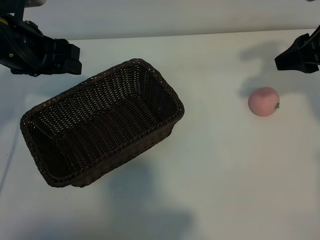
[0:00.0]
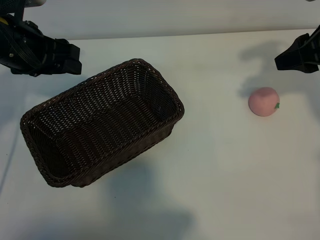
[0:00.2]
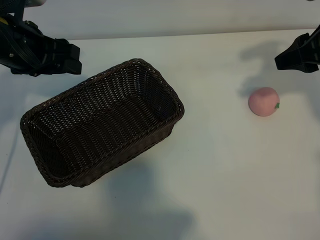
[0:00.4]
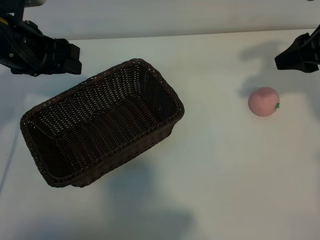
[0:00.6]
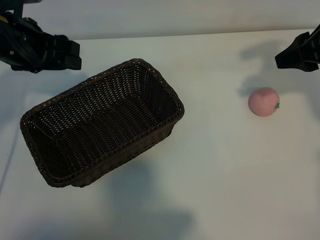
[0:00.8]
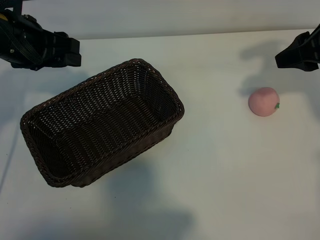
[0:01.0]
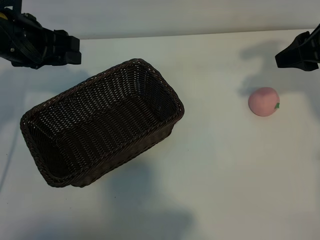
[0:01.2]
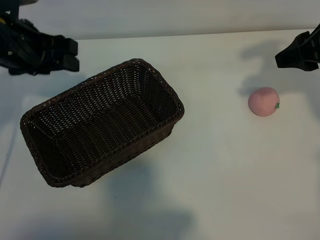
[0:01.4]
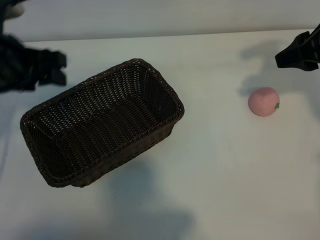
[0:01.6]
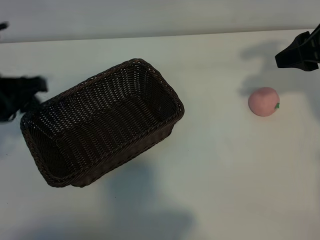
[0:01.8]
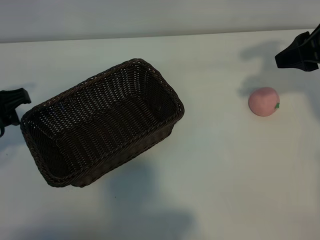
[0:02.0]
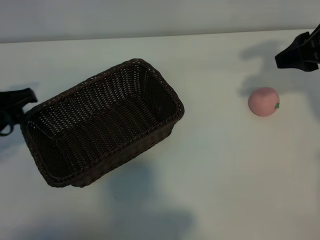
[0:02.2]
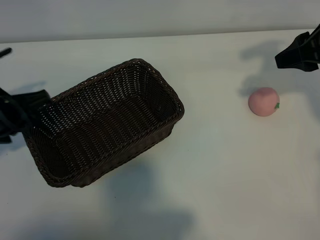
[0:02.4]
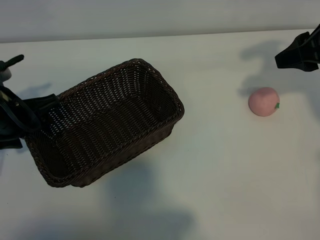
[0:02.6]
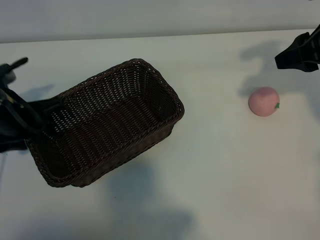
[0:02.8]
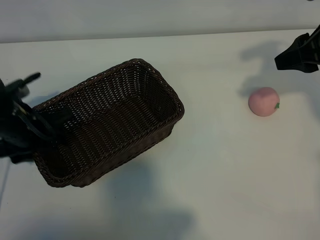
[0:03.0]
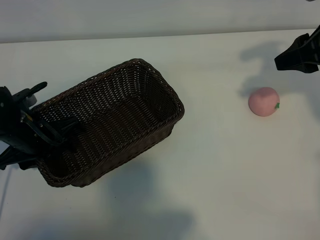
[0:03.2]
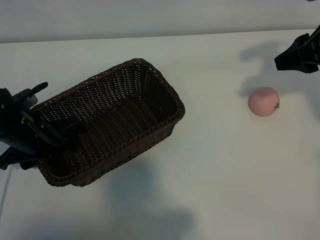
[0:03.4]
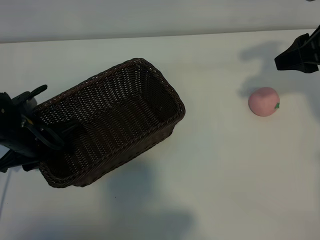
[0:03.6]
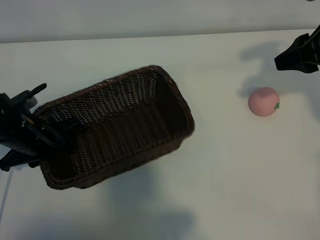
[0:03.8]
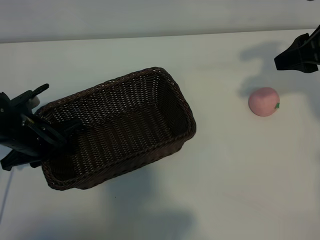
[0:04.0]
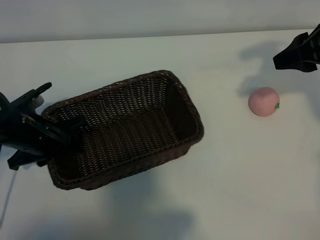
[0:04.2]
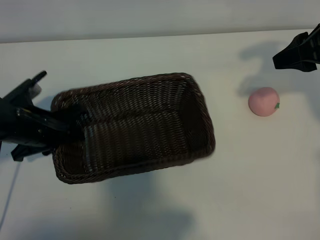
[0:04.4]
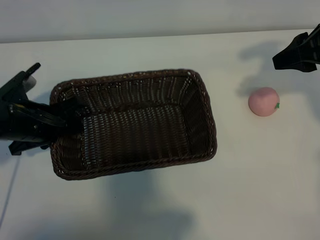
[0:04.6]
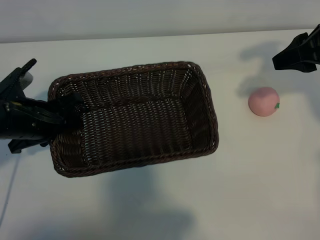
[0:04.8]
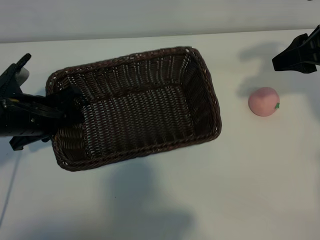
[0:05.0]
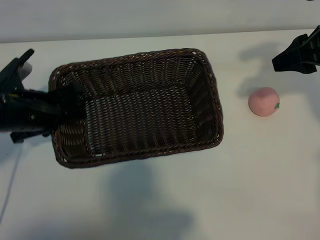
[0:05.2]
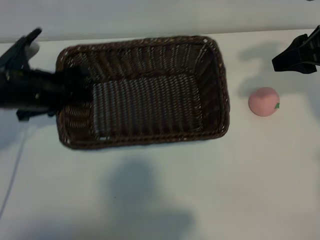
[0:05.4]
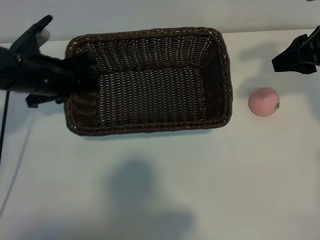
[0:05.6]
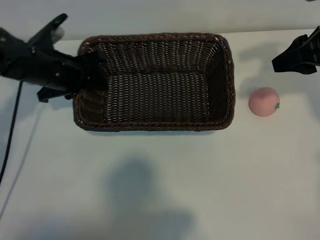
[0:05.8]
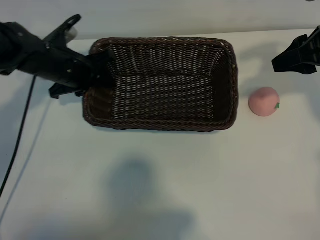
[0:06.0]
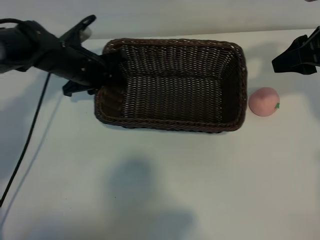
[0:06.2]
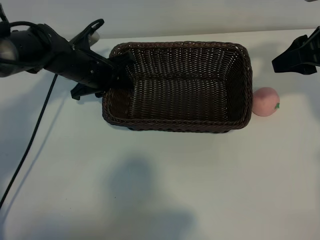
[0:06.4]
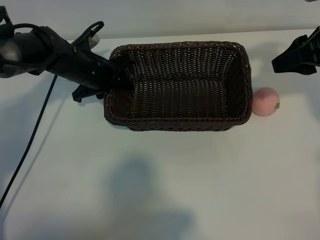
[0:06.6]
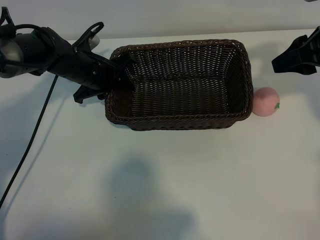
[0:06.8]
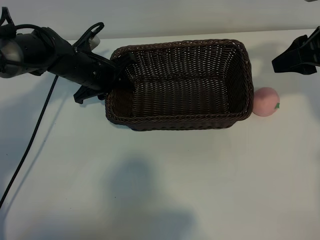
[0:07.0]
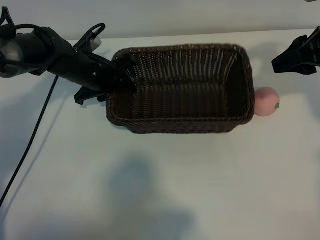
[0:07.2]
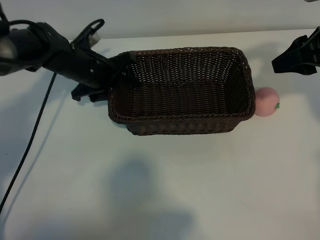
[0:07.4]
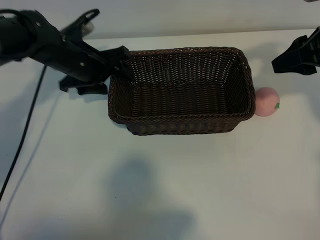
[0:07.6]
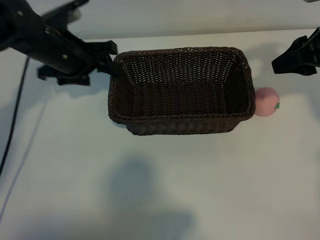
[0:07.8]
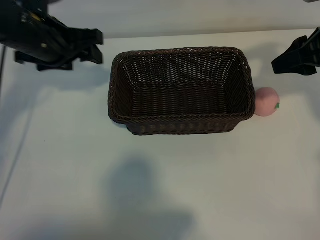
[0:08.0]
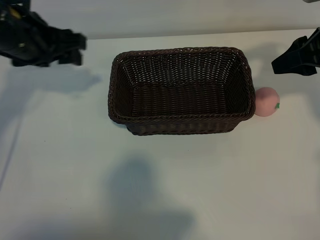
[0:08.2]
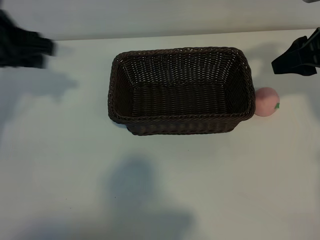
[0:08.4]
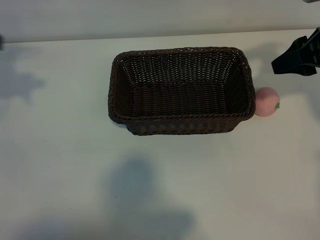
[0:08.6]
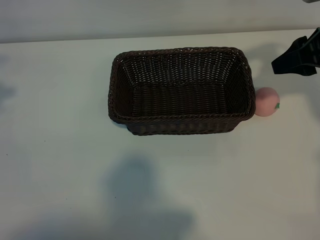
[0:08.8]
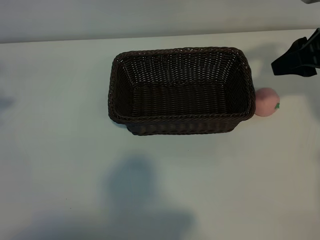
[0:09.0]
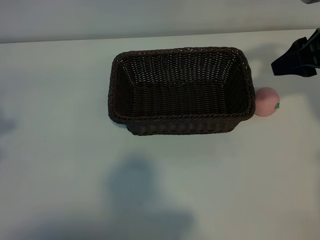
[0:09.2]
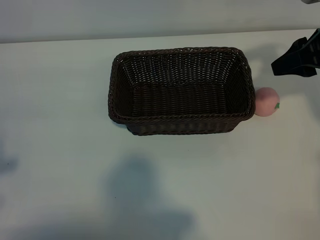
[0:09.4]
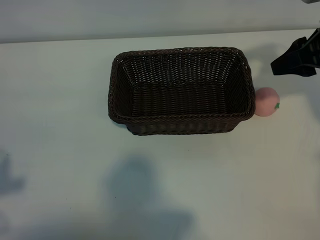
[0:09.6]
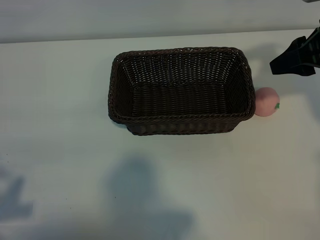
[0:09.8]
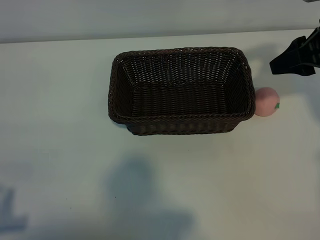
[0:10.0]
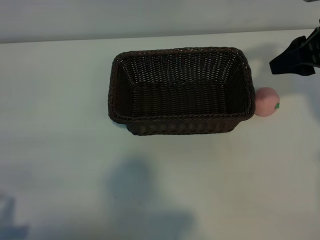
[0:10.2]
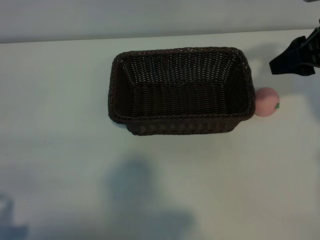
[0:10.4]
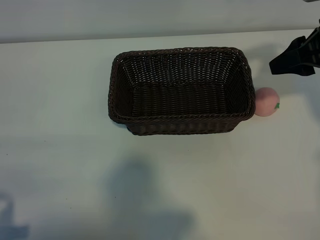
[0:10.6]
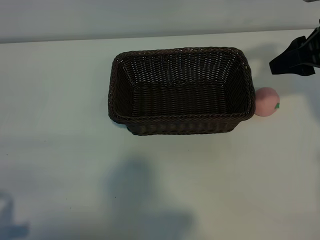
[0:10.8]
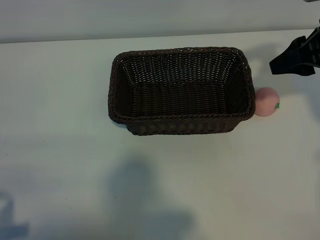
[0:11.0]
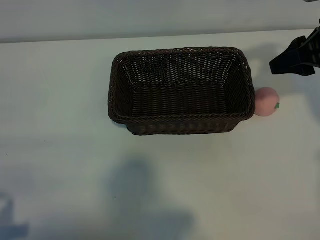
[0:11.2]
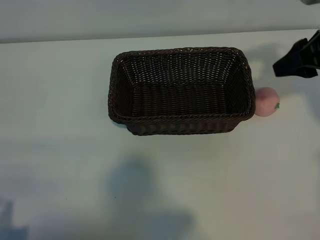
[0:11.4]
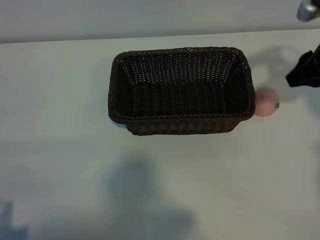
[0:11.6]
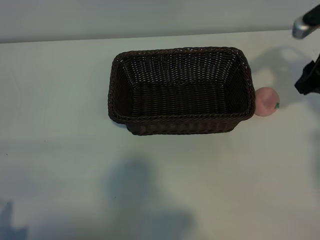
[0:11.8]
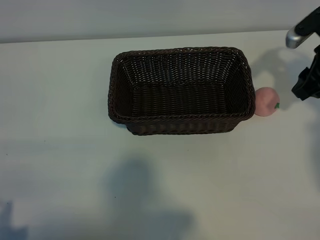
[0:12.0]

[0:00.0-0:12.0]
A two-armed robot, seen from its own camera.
Task of the whole recording: pick up the peach and put it into the basket.
Step, 0:00.8 to 0:03.8: Grasp the basket with left gripper.
Step, 0:04.0 to 0:07.6: Place the basket in the center of view with left gripper.

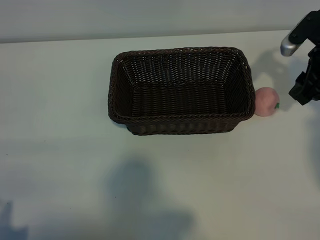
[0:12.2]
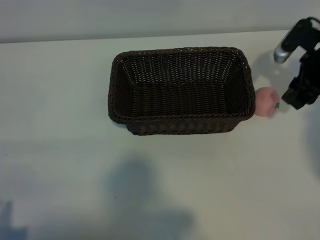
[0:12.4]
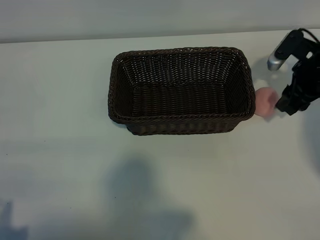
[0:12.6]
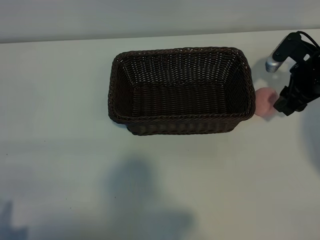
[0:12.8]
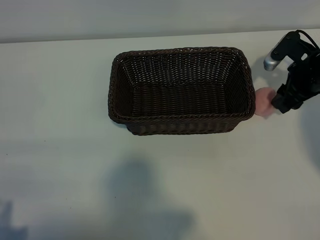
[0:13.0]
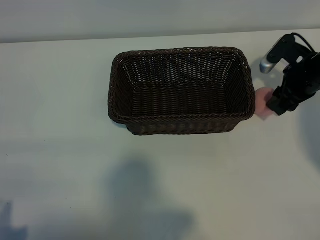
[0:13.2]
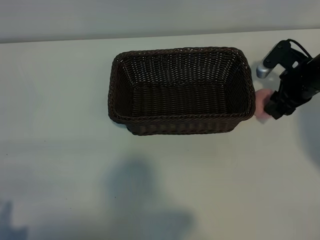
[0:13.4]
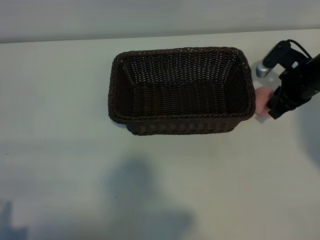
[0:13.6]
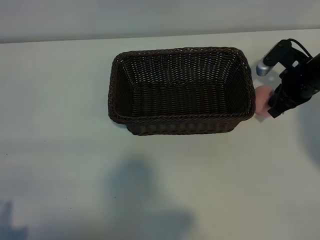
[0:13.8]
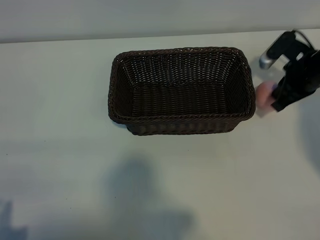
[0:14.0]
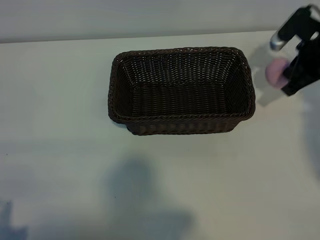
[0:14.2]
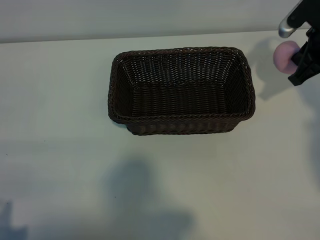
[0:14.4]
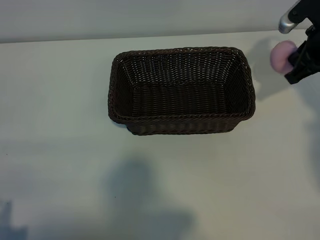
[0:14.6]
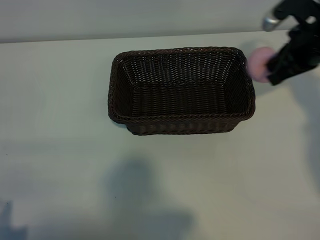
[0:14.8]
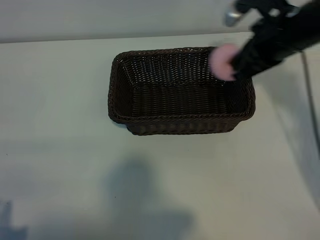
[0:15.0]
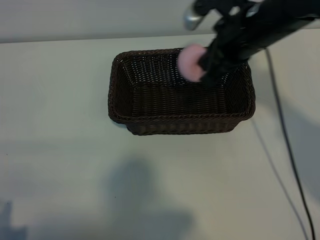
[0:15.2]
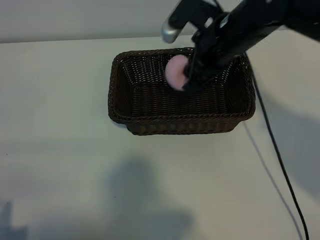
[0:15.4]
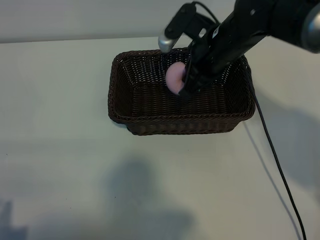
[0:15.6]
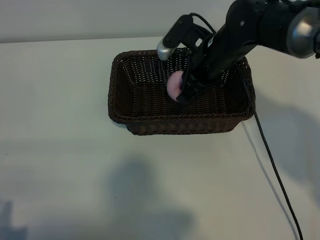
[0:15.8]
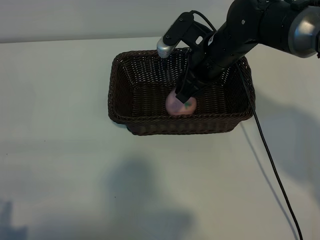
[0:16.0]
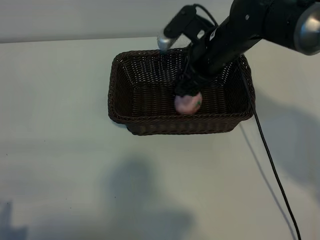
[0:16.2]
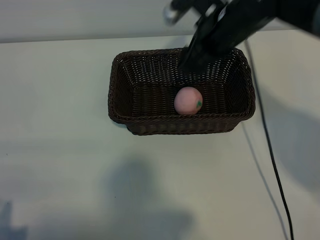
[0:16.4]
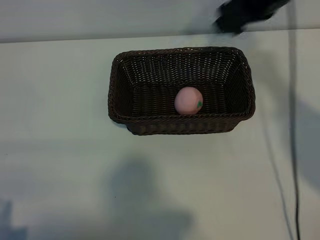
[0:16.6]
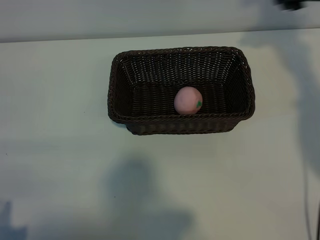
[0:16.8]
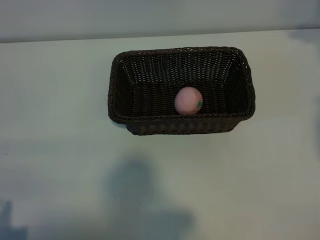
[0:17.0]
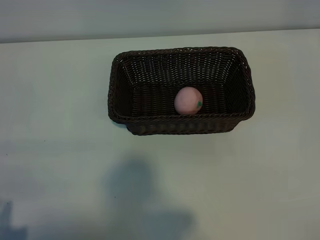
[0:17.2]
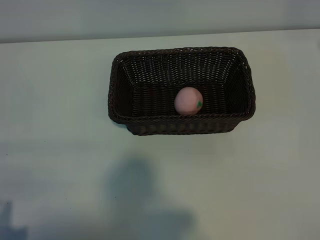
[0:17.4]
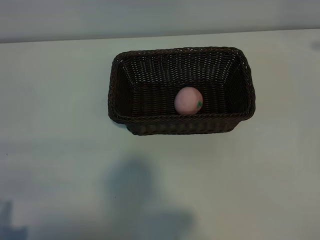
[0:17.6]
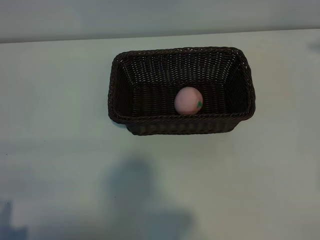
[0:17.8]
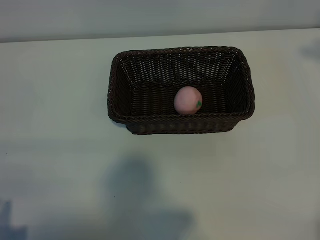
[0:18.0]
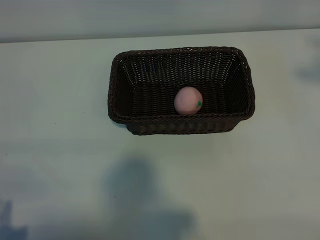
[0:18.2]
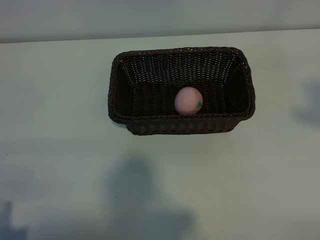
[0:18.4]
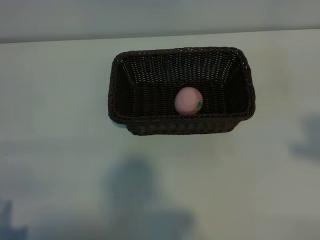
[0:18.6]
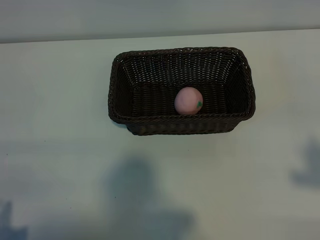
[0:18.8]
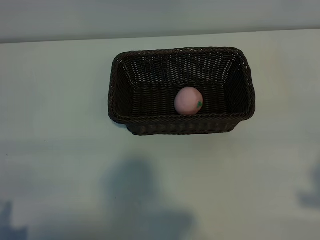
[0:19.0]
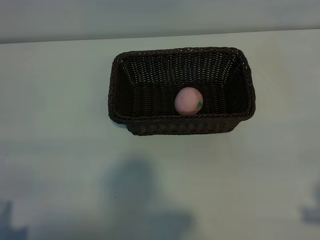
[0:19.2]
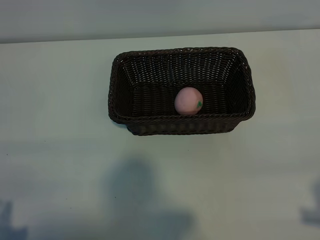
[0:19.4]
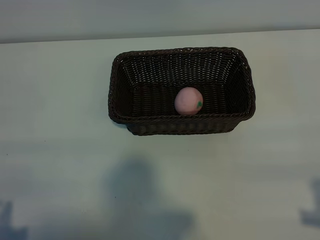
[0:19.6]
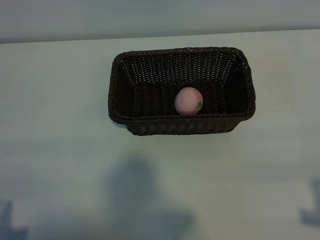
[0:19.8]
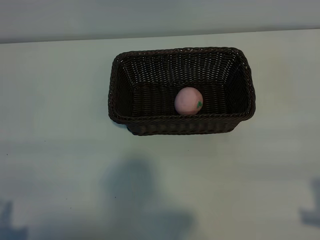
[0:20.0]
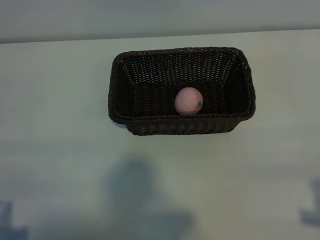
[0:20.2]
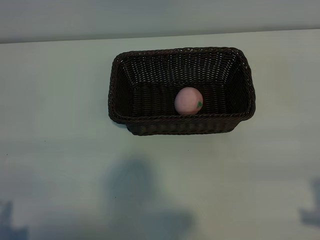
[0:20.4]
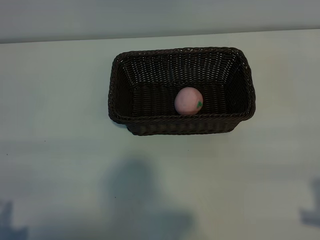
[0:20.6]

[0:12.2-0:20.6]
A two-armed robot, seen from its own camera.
Task of the whole recording: pick up the peach and put it into the basket.
Step, 0:13.8 to 0:16.2: Place the peach in the basket with right gripper.

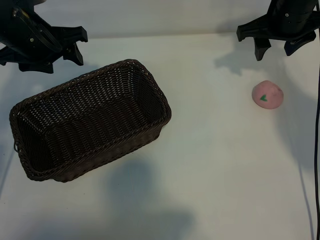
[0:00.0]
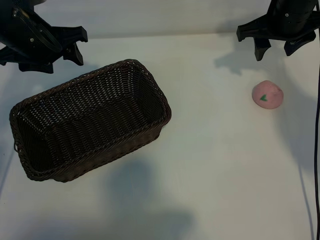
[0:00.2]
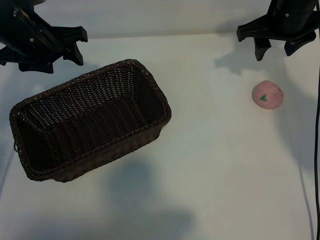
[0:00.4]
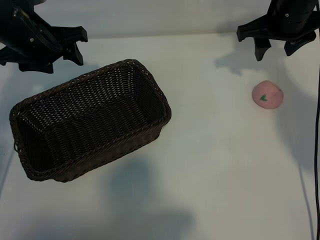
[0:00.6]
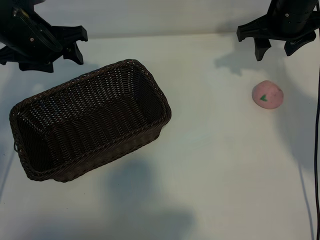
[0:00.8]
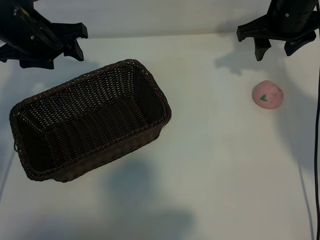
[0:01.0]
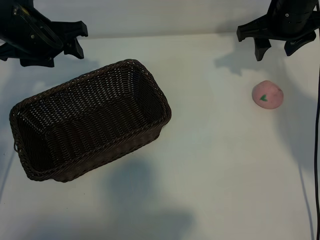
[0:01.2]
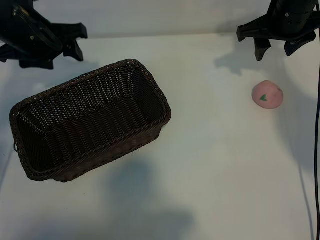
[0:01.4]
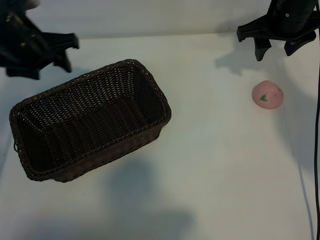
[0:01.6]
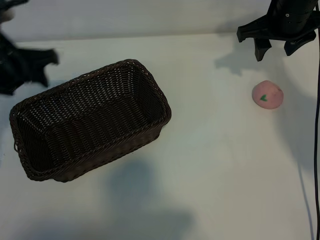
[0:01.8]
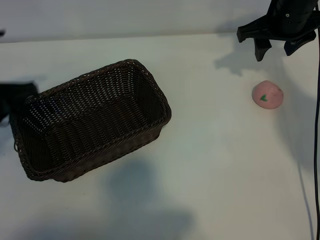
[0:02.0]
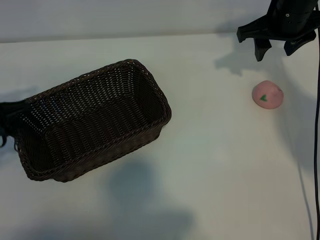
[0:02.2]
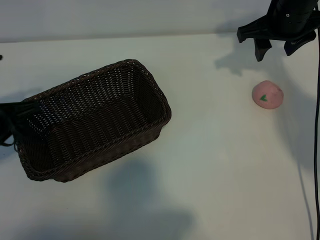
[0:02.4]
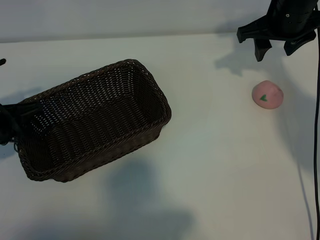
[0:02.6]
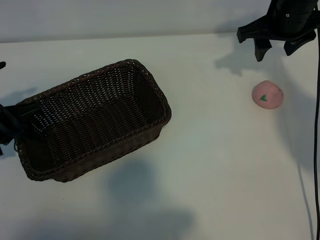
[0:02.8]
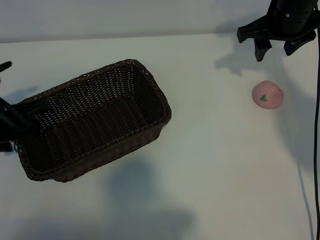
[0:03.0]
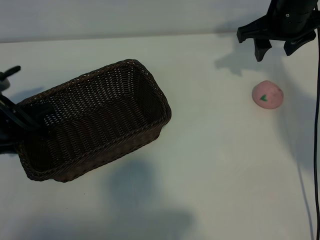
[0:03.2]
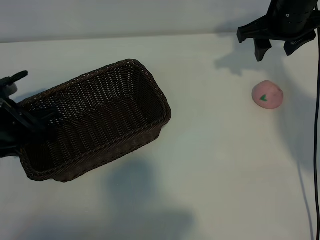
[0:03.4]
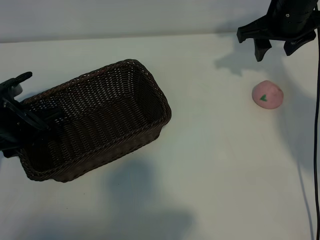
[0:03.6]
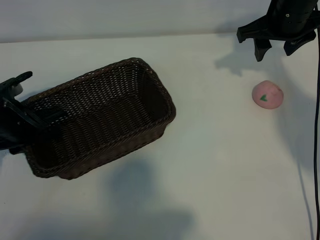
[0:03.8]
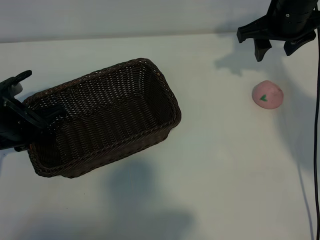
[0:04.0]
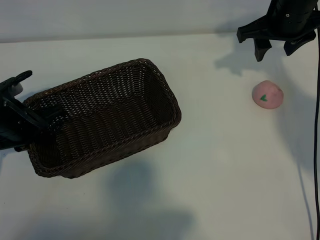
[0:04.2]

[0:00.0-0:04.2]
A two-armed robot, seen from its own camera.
Task of the whole recording: pick up the peach and put it into the basket.
Step, 0:01.0 to 0:04.2: Grasp the basket with left gripper.
